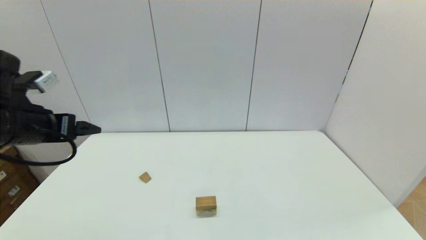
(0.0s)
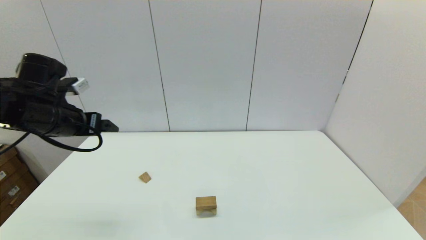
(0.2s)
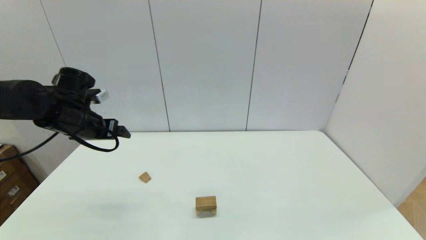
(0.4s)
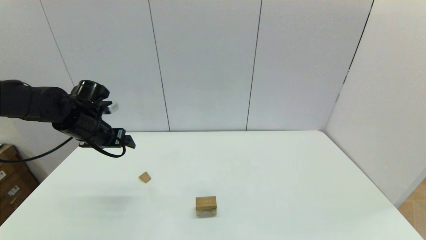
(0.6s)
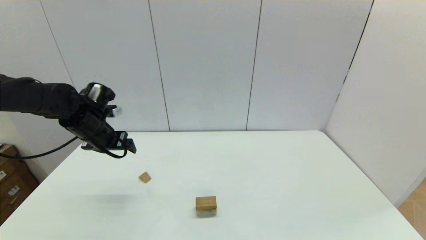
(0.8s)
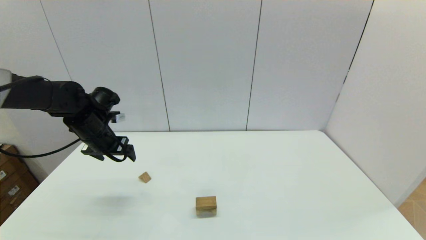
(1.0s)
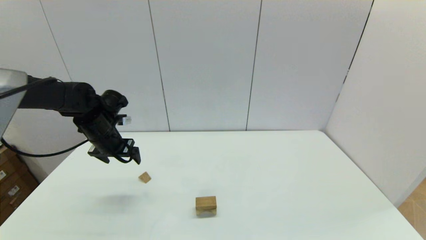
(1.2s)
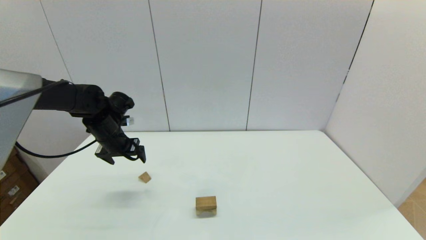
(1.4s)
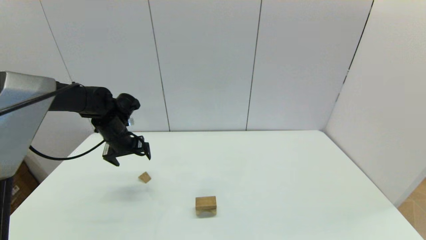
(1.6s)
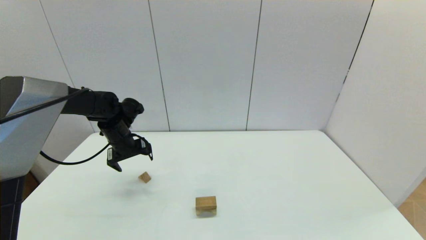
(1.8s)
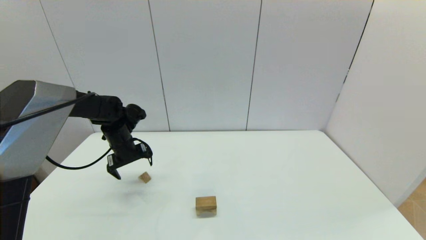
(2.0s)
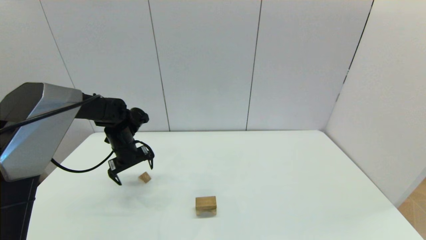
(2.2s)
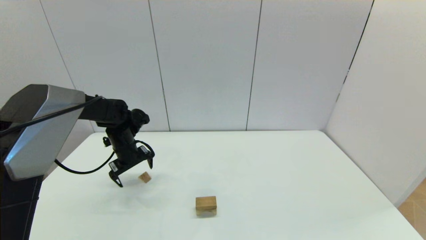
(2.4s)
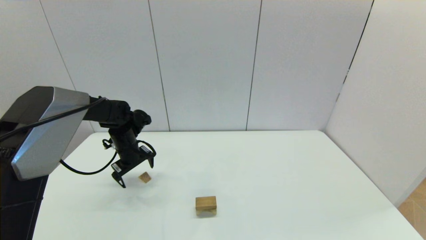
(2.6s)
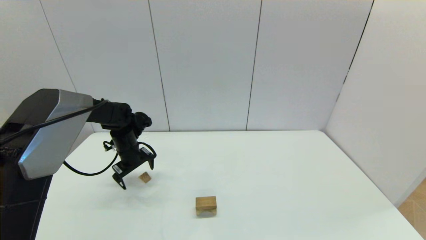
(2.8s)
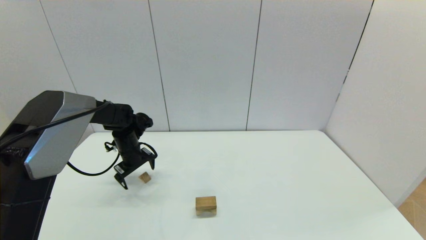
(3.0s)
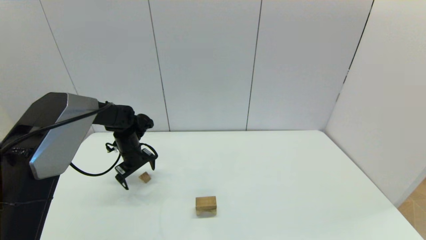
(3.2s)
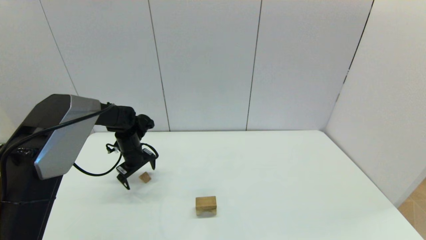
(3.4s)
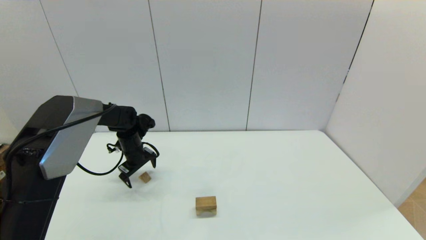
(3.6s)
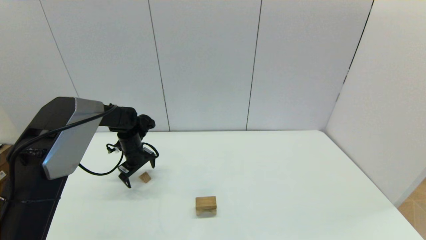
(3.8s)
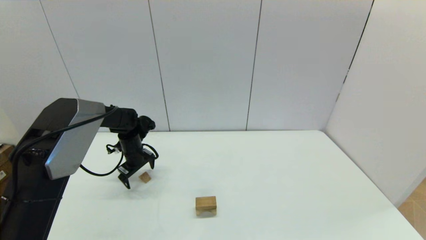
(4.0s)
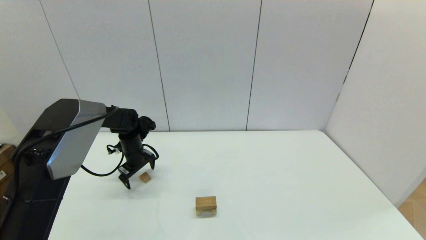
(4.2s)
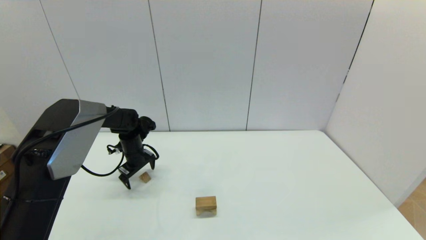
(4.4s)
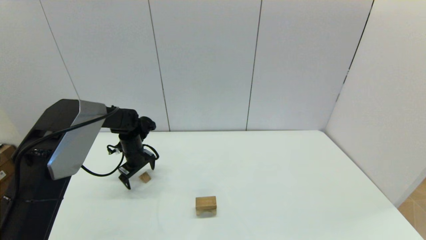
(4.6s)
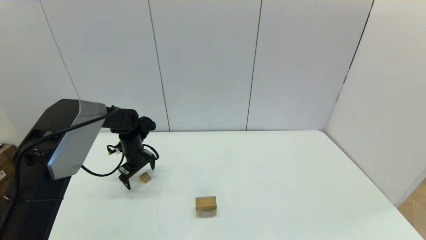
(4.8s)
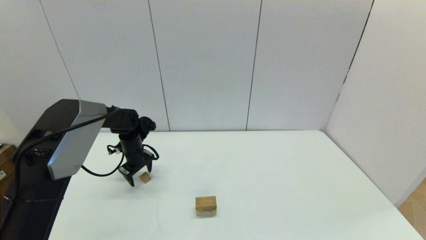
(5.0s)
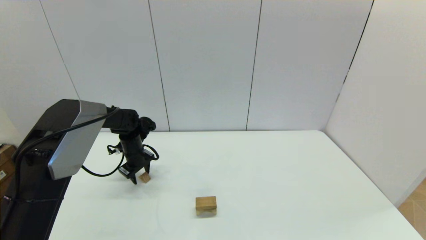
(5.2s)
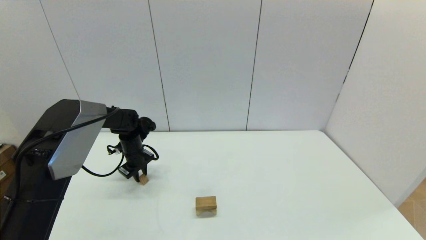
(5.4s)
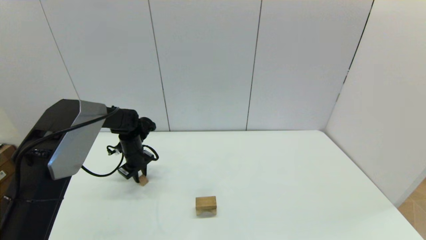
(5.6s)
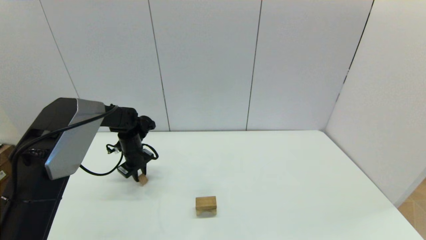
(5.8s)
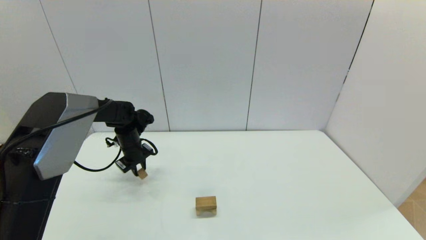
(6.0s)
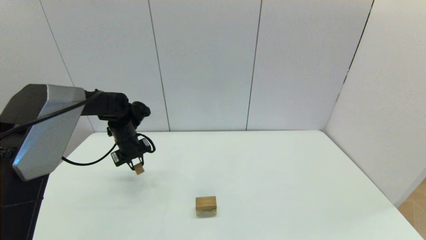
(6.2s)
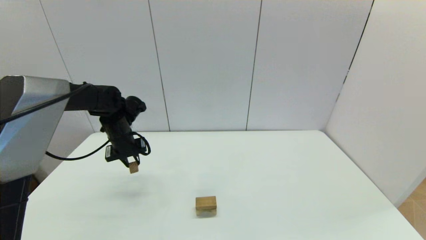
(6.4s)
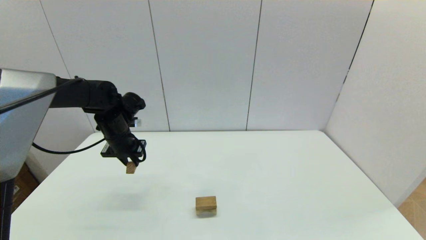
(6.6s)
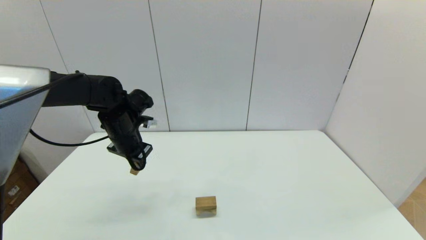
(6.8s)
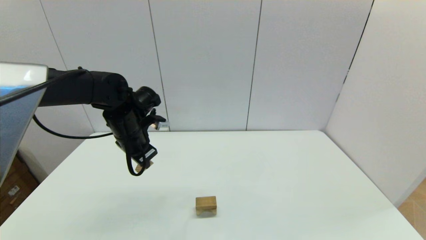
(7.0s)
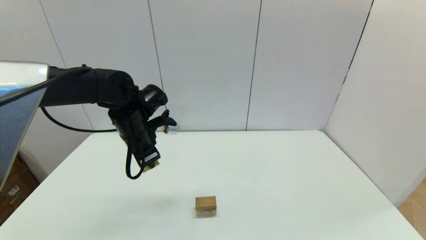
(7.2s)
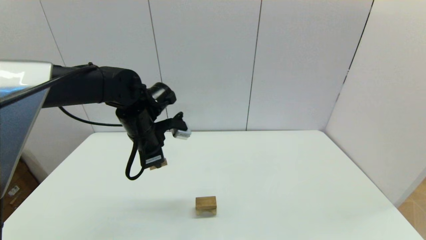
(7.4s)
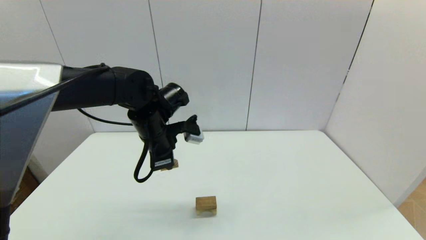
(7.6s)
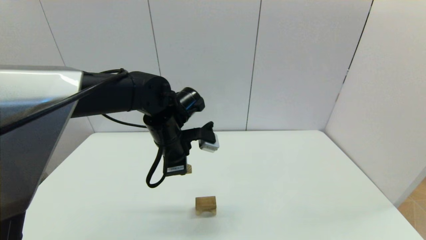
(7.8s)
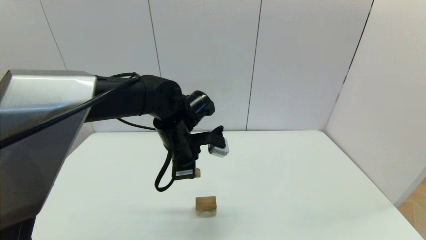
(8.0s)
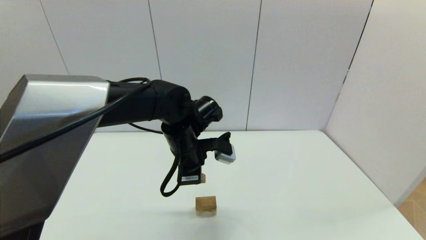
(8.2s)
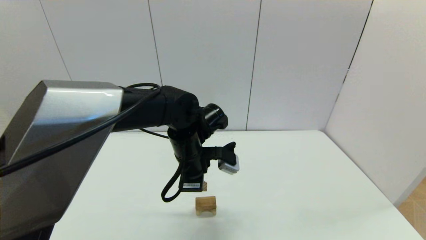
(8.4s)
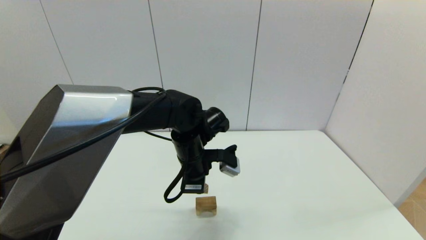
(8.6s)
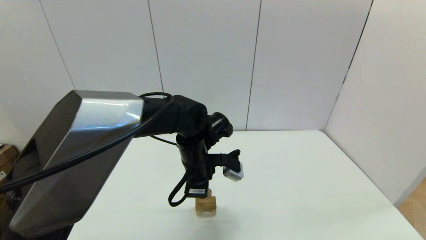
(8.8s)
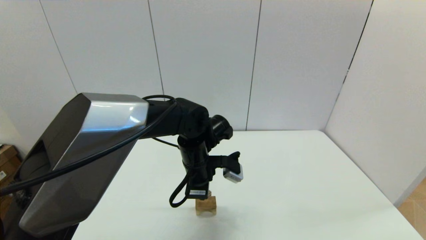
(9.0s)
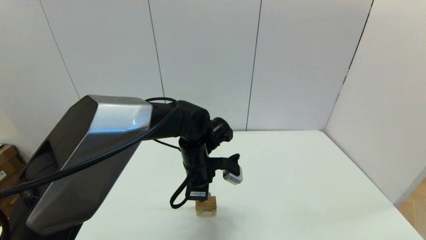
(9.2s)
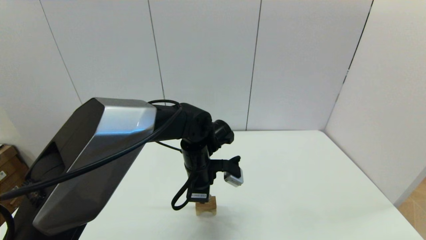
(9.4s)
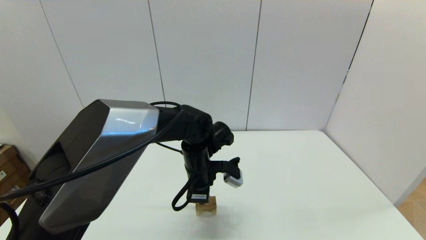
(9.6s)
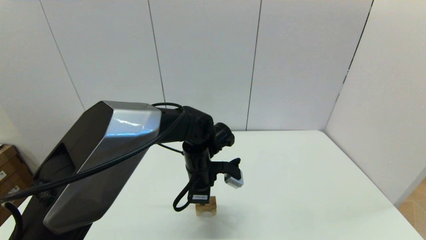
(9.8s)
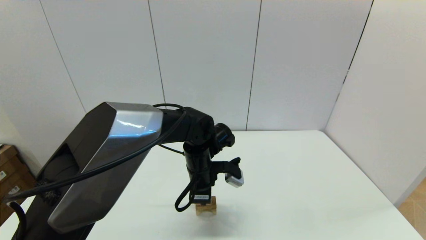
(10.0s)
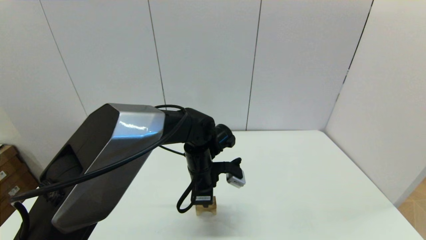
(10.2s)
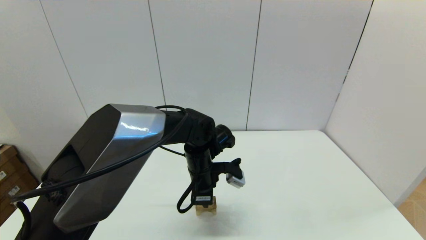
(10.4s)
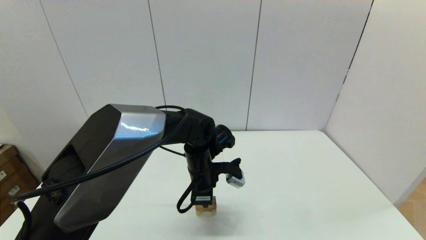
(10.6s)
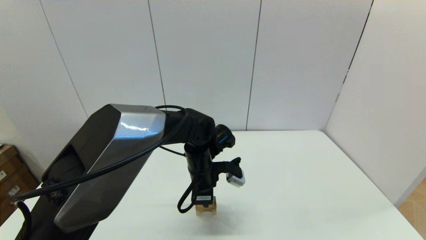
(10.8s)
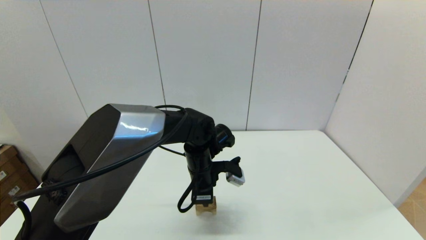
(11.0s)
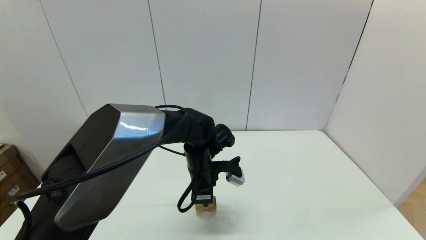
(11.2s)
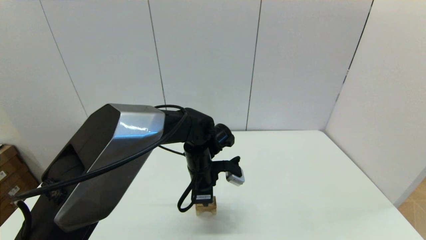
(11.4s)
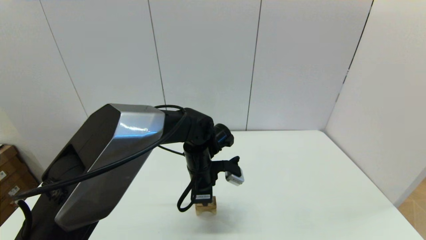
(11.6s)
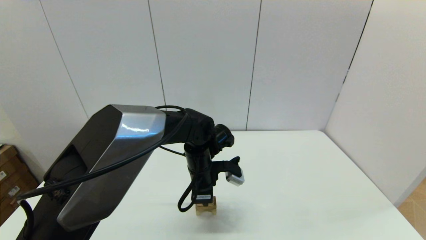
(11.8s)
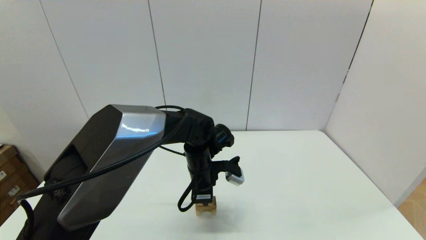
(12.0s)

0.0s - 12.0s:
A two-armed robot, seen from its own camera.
Task of the whole recording: place the arched building blocks in the center of the table, set up the rectangular building blocks, and then set up the triangular building blocks.
Step, 0.0s - 5.2s: Grasp the triangle-shaped block with the left gripper.
0.0s - 1.6s: The left gripper travels forward and downward by about 20 cm.
1.6s - 3.0s: The left gripper heads downward, covering some 5 cm.
3.0s - 4.4s: There are only small adjustments of the grippers.
4.4s - 6.0s: The left gripper closes up.
6.0s - 7.6s: The left gripper is displaced to the right, upward and backward by roughly 20 cm.
7.6s - 9.0s: The left gripper travels to the right and downward by roughly 10 cm.
9.0s - 10.4s: The grippers stay close to where they were, moving slightly.
10.4s - 12.0s: Both grippers stay put.

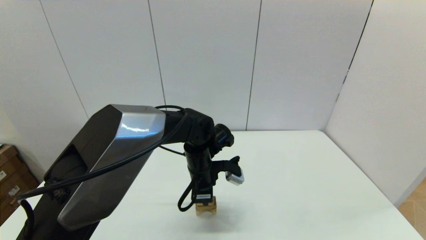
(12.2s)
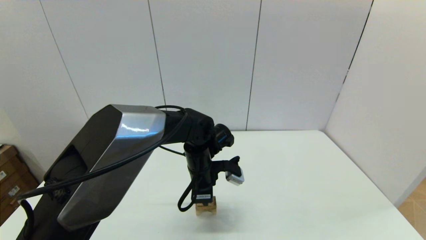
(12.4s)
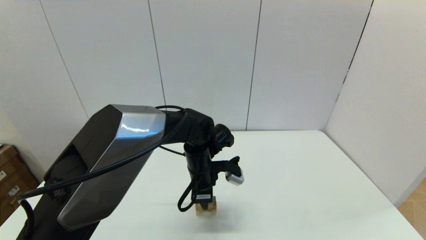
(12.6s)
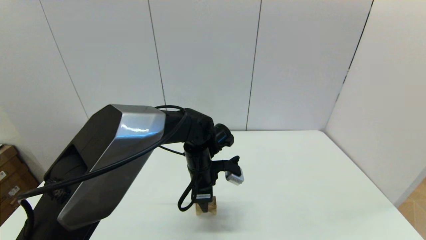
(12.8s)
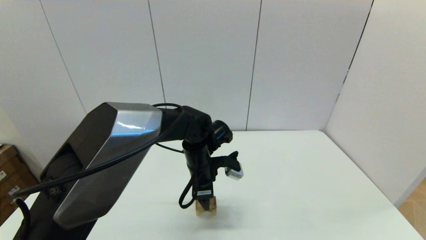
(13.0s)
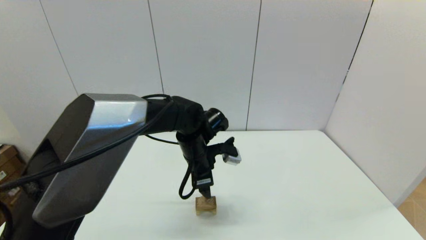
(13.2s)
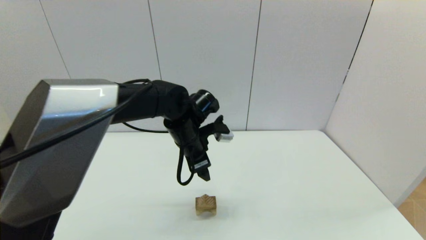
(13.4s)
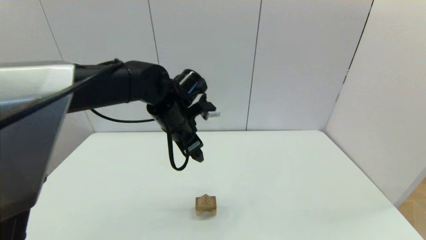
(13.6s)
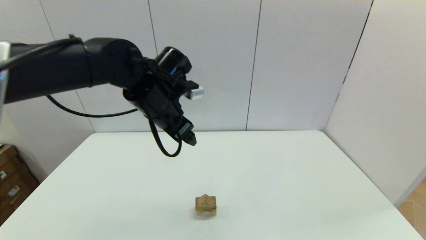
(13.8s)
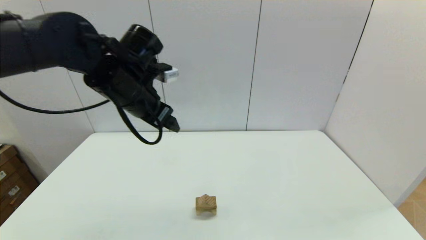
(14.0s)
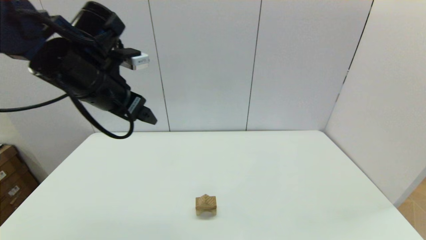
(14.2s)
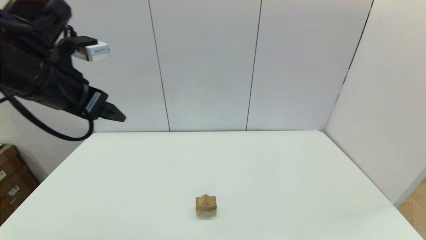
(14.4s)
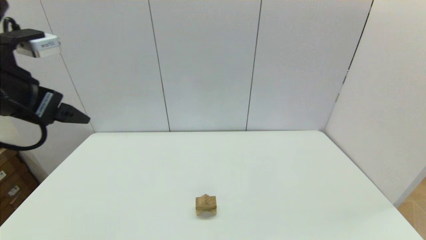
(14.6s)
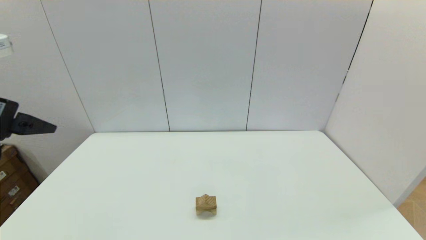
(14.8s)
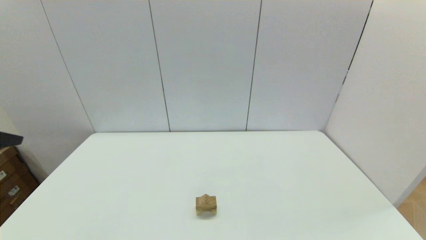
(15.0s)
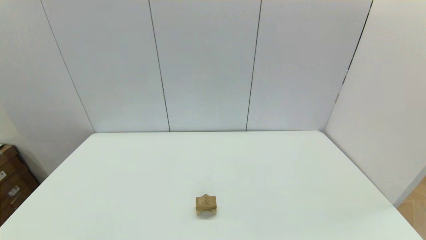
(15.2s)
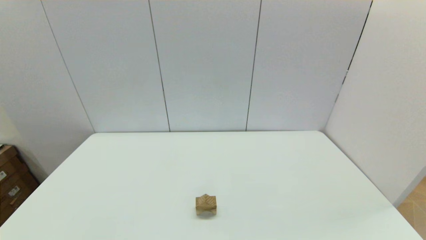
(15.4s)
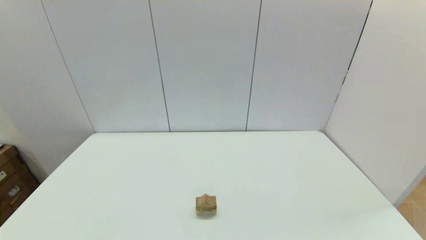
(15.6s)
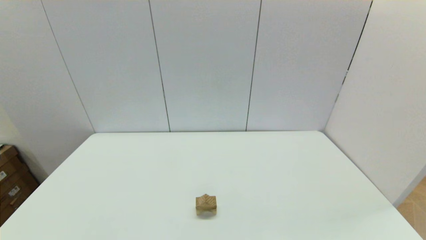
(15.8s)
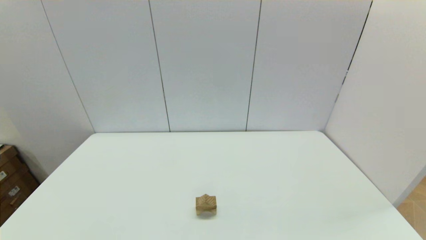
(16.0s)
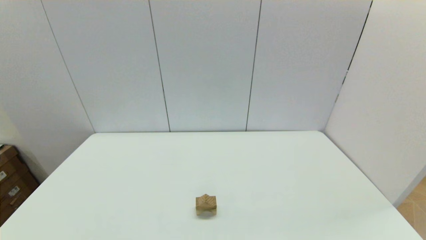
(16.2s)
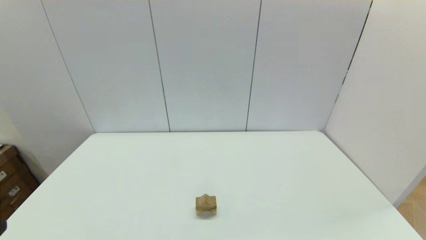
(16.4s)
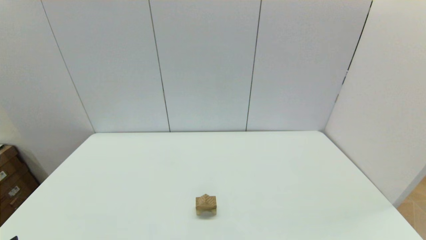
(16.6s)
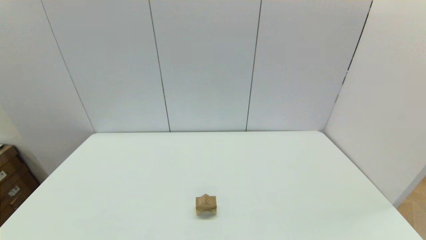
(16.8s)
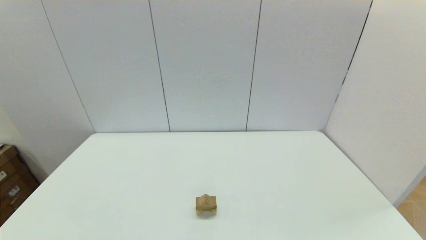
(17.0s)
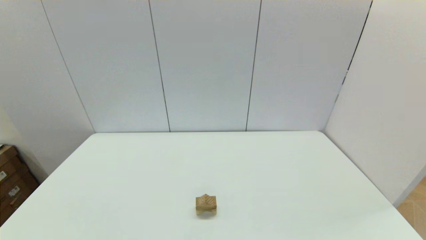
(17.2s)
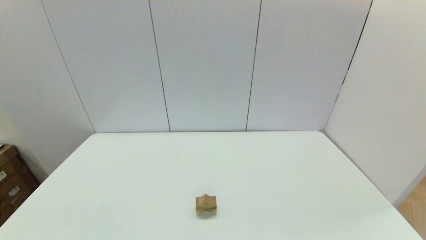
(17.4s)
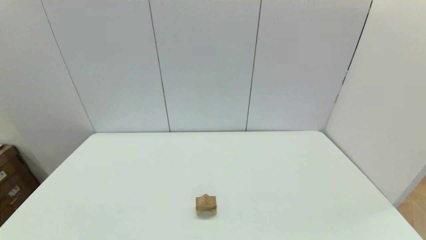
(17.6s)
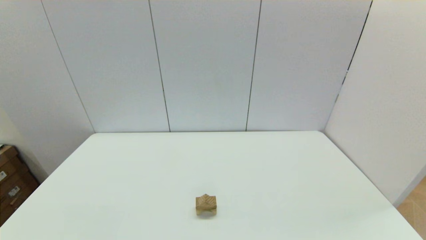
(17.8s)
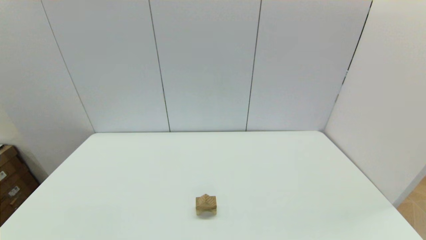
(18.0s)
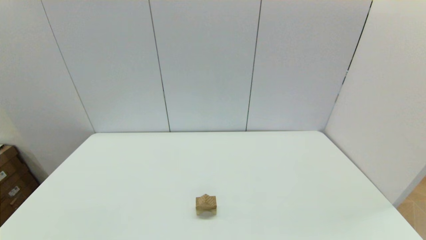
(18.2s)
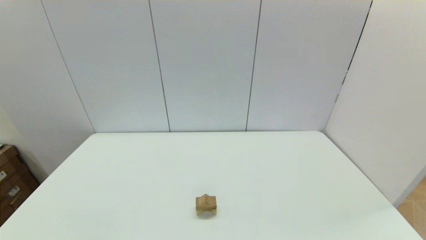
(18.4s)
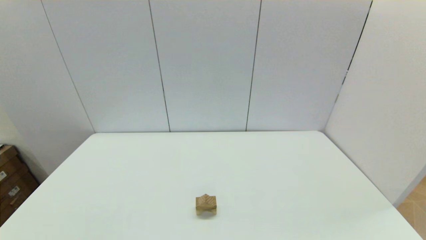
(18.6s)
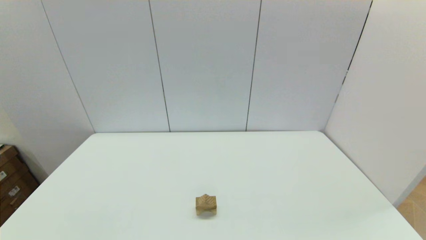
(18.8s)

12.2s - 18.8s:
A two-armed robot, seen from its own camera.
Task of the whole recording: place the arched building blocks in the center of the table, set up the rectangular building blocks, and then set up the triangular building blocks.
12.2s - 13.8s: The left gripper travels upward and to the left by some 20 cm, and opens its fingers.
13.8s - 15.4s: The left gripper heads backward and to the left, covering about 35 cm.
